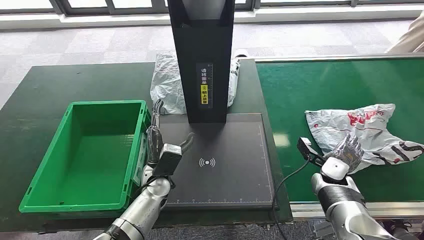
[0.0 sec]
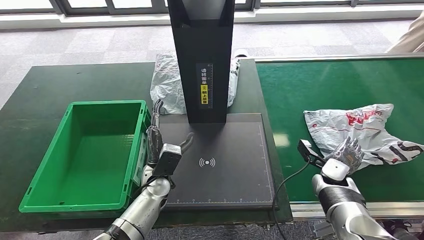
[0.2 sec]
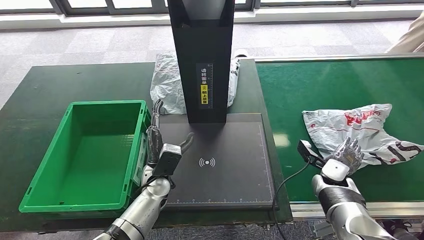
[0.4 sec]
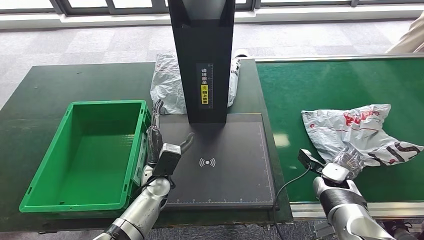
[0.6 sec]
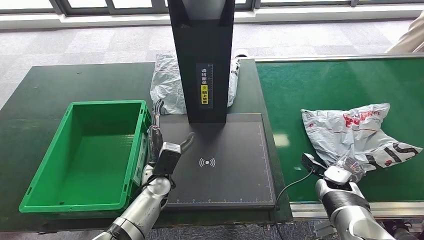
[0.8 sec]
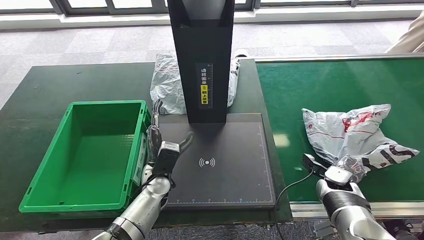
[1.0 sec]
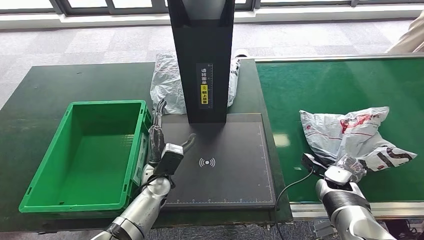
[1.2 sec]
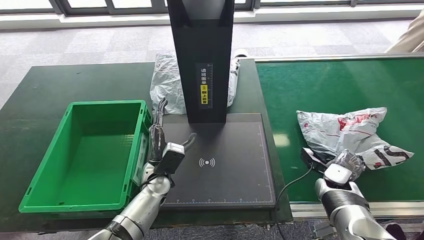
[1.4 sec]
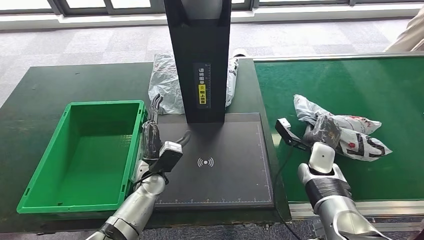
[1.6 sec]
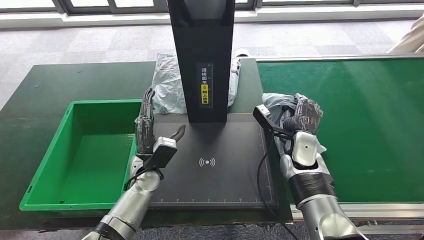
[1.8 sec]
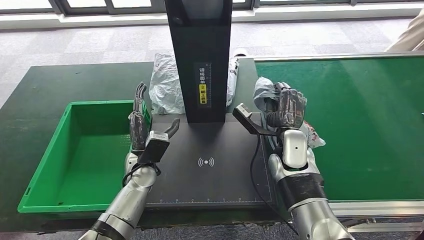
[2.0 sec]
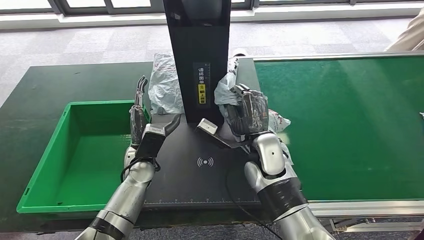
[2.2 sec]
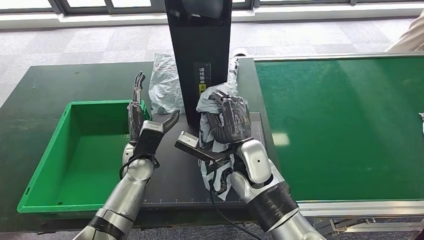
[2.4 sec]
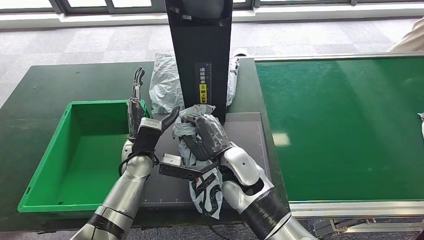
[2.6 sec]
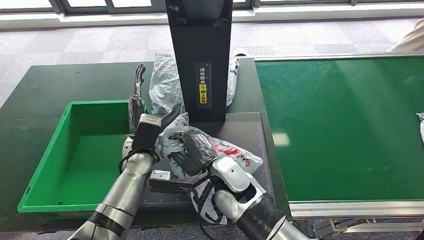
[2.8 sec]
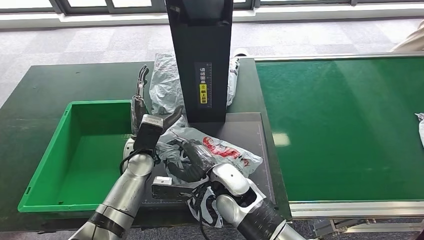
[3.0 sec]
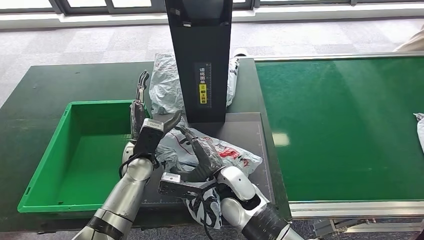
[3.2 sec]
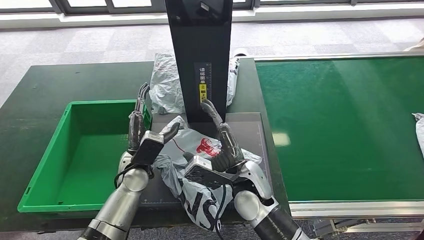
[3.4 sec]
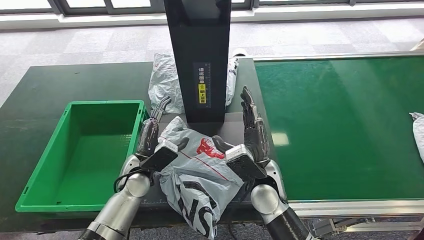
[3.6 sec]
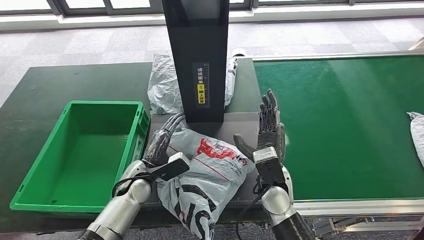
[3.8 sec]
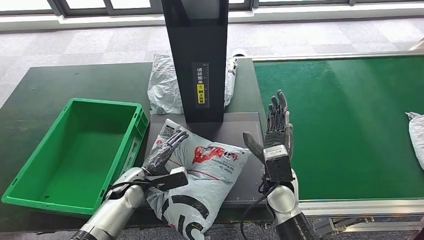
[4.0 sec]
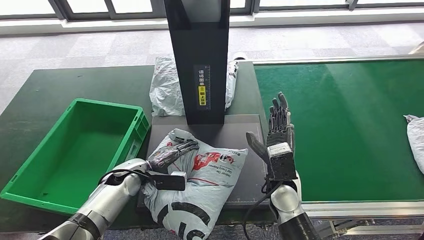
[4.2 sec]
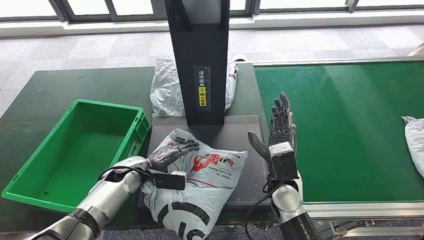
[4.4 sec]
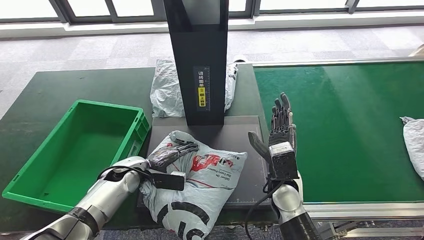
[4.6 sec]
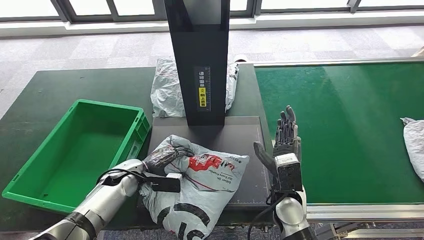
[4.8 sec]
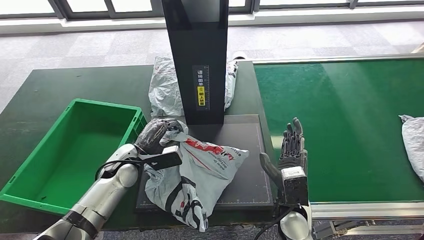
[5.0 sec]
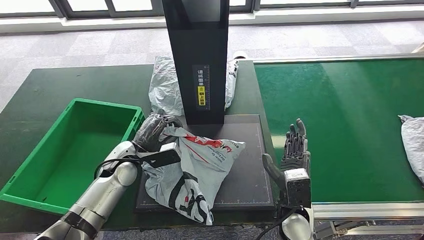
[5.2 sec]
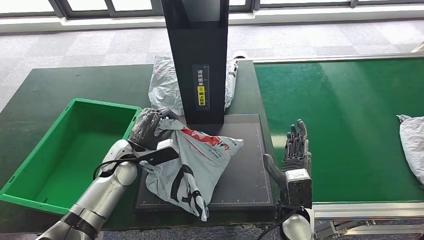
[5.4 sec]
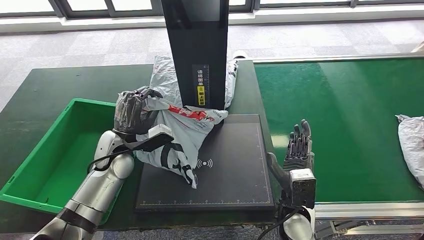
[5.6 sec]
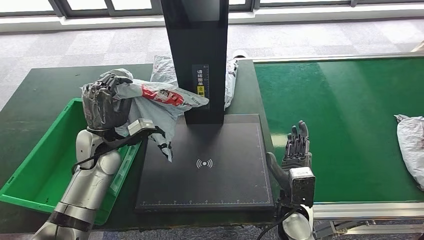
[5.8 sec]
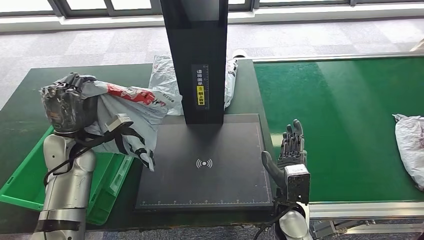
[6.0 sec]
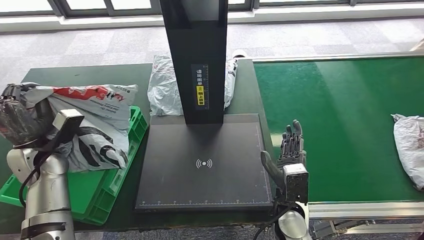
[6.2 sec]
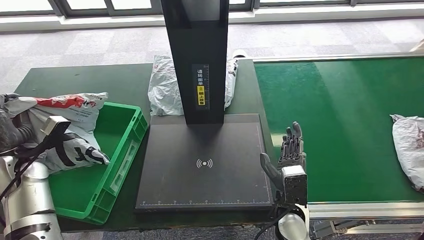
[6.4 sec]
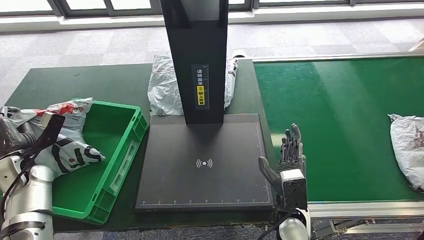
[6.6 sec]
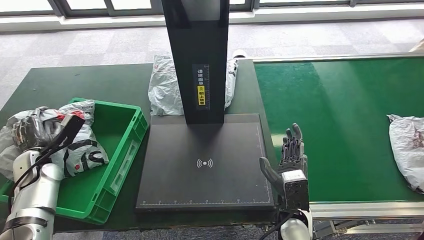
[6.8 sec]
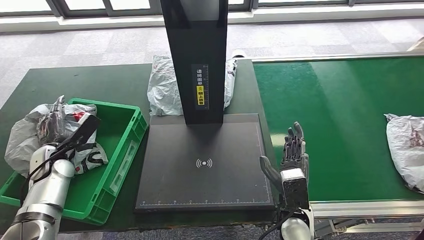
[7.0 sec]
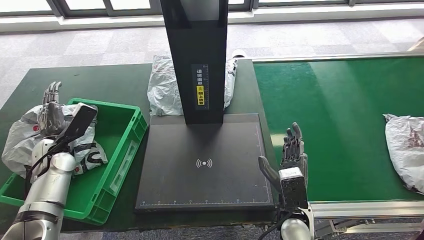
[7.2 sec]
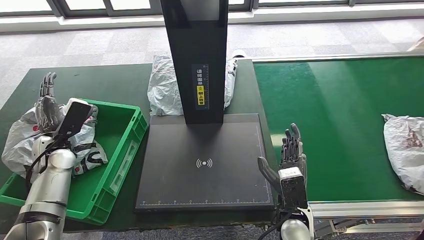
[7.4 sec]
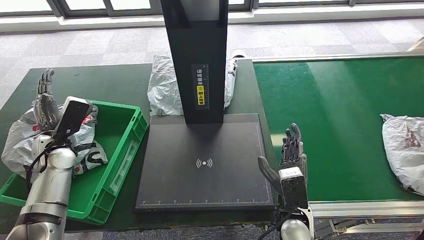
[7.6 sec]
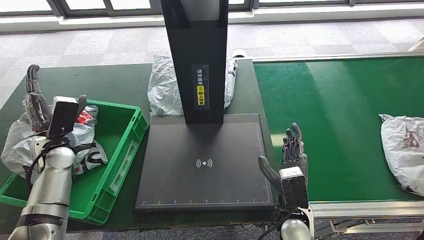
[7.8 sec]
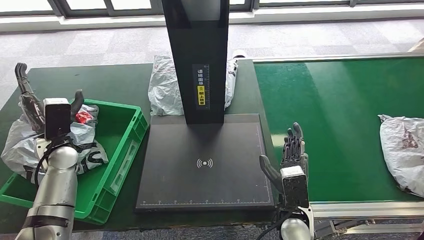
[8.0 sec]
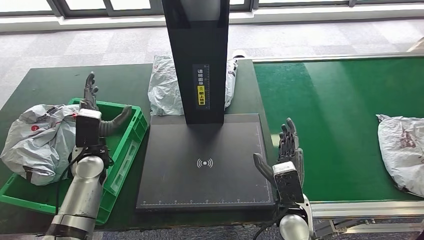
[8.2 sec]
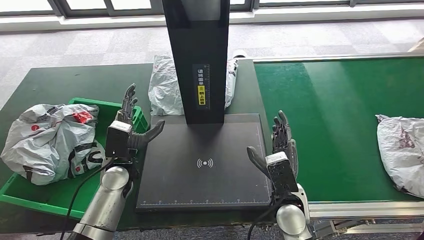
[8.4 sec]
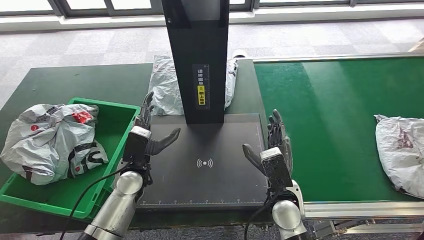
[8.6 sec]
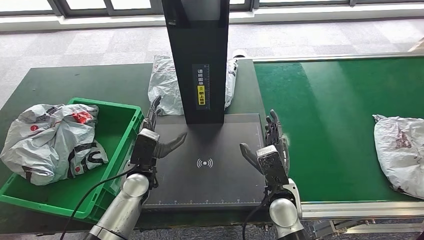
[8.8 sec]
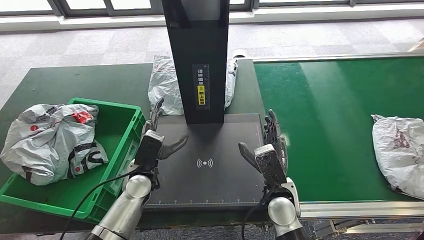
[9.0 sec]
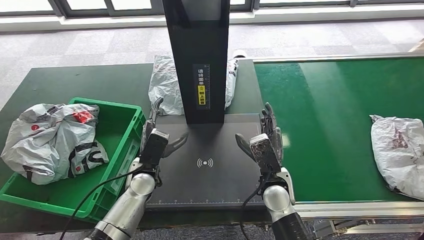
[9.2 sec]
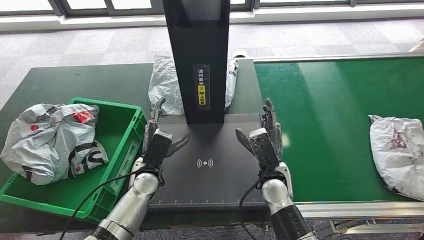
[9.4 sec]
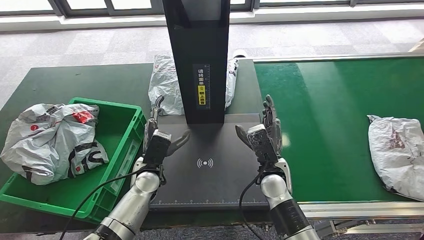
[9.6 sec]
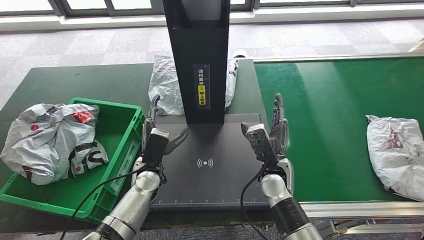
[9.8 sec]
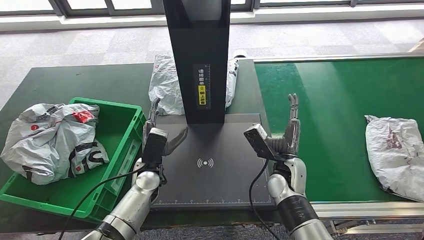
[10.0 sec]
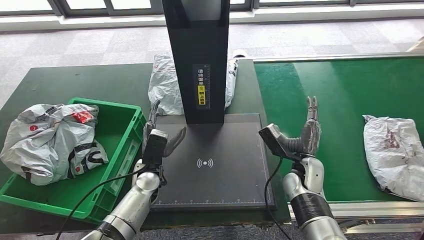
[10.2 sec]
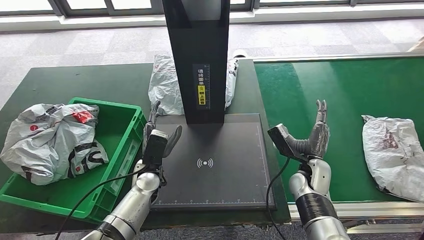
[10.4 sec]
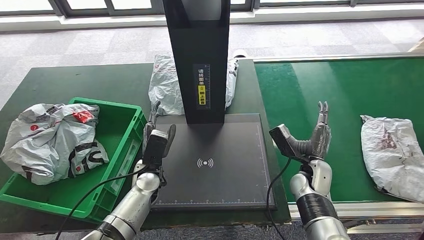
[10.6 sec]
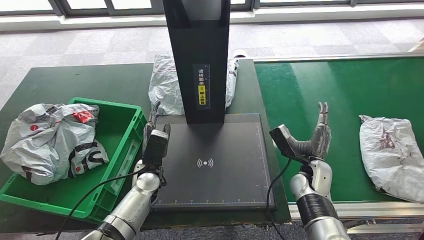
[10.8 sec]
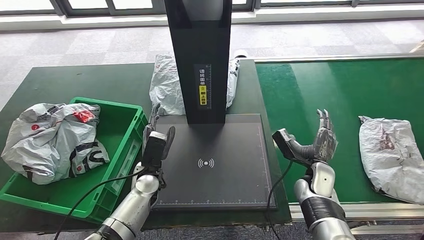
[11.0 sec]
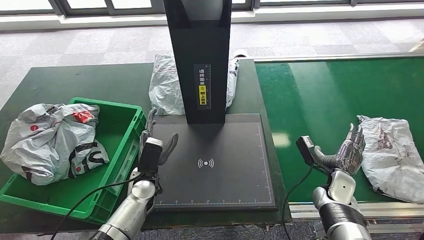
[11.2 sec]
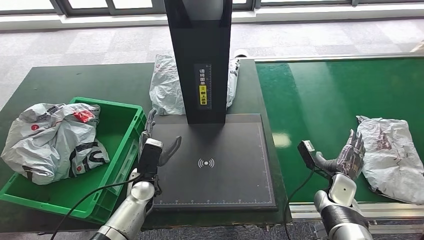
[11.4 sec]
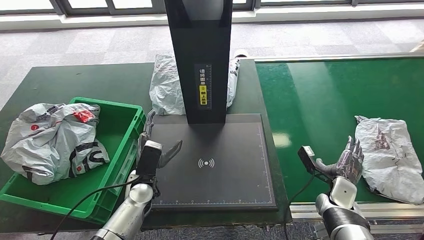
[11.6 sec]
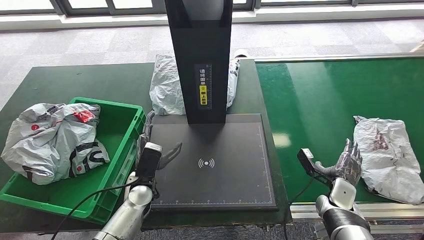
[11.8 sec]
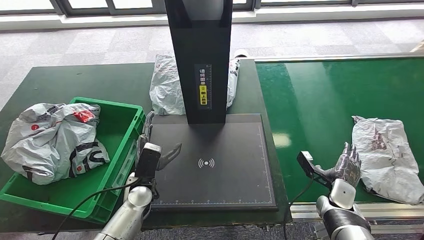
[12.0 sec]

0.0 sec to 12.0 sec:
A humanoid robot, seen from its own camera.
Step, 0.0 sec to 1.8 sec: Take the parcel off the conveyor belt.
Step, 2.0 sec to 3.8 sec: Place the parcel onto the inbound machine.
Step, 4.0 sec to 6.0 sec: Pick up the parcel from the inbound machine.
Step, 6.2 sec to 7.8 sec: Put the parcel inside the courier box.
6.0 sec to 7.6 sec: The left hand is displaced to the left by about 5 cm.
7.6 sec to 9.0 sec: The left hand goes roughly 25 cm to the right. The right hand changes place by some 5 cm.
9.0 sec to 10.4 sec: The right hand goes some 10 cm to the right and forward.
10.4 sec to 12.0 sec: The right hand travels to the right and downward by approximately 10 cm.

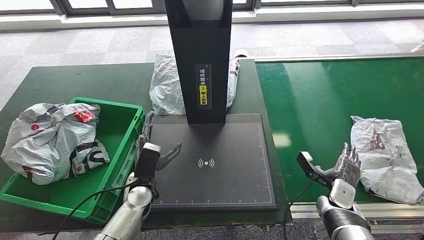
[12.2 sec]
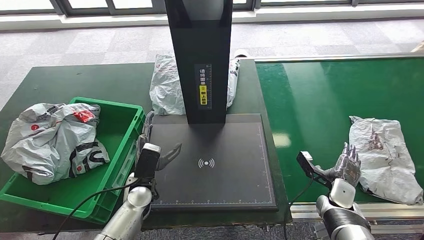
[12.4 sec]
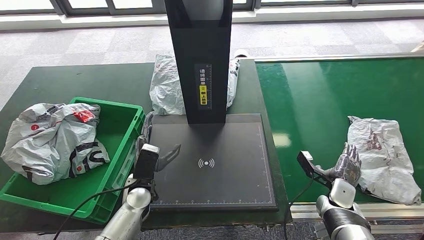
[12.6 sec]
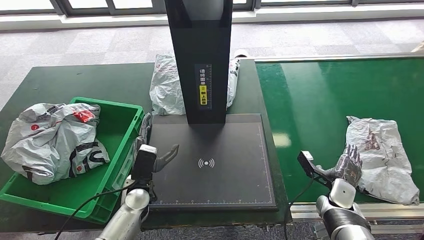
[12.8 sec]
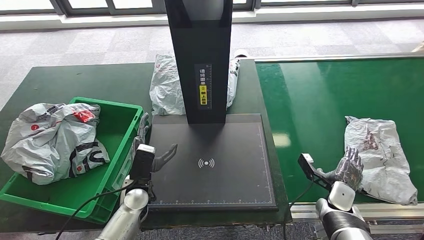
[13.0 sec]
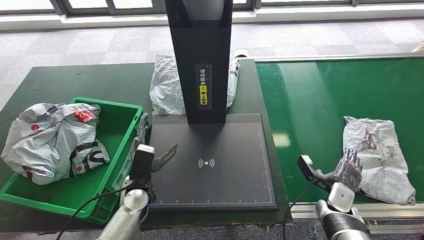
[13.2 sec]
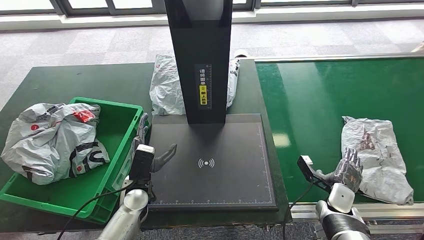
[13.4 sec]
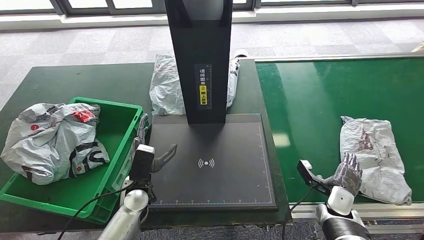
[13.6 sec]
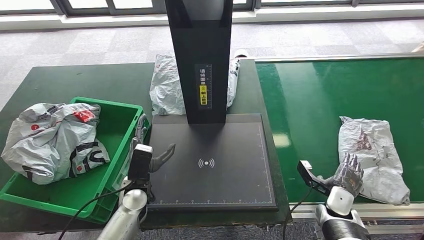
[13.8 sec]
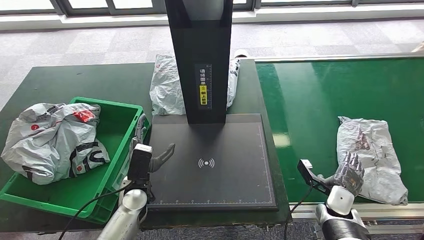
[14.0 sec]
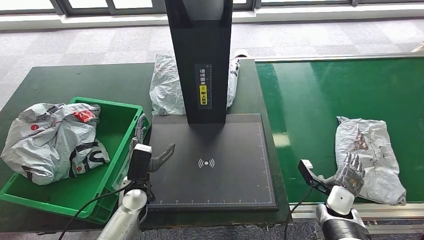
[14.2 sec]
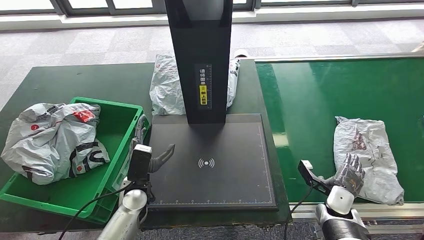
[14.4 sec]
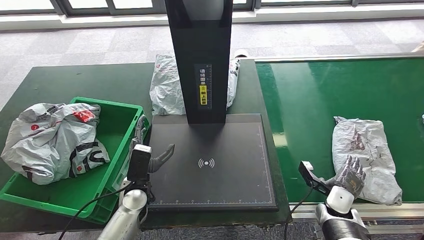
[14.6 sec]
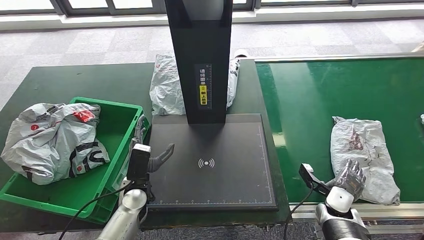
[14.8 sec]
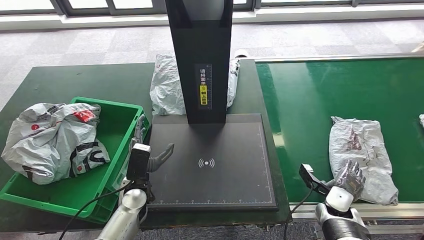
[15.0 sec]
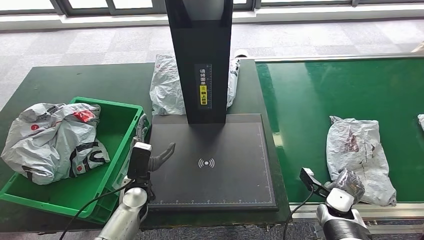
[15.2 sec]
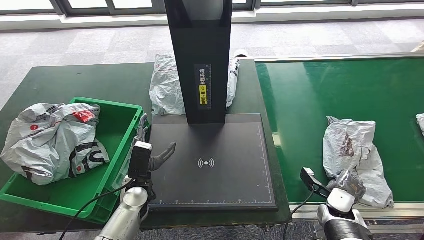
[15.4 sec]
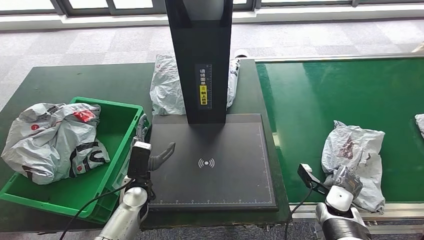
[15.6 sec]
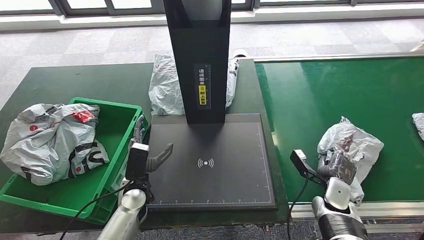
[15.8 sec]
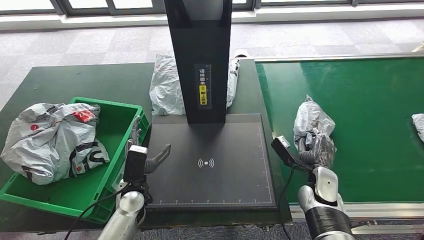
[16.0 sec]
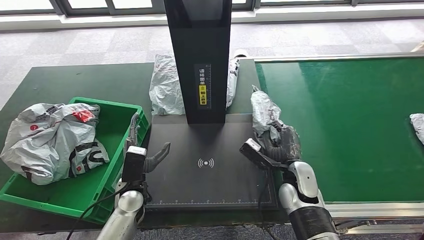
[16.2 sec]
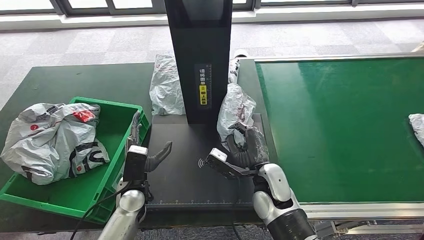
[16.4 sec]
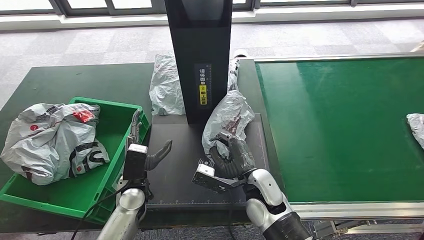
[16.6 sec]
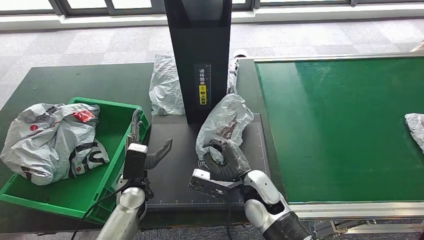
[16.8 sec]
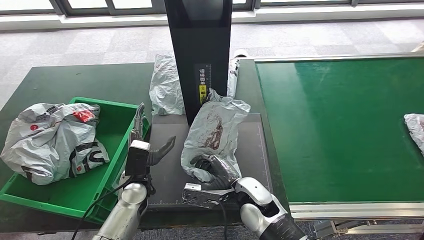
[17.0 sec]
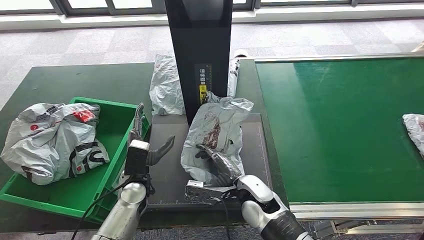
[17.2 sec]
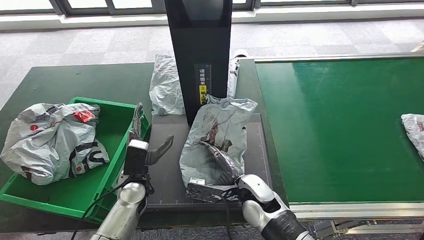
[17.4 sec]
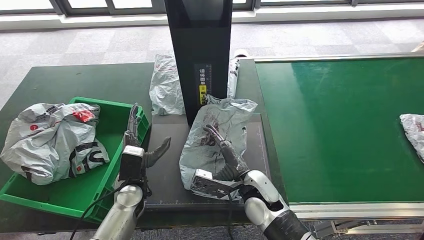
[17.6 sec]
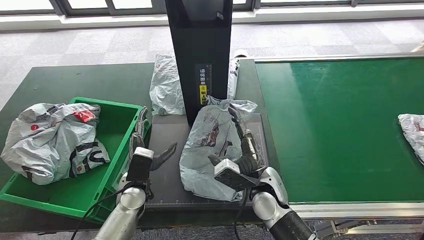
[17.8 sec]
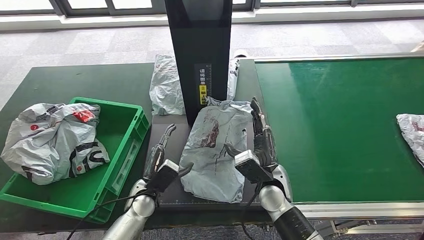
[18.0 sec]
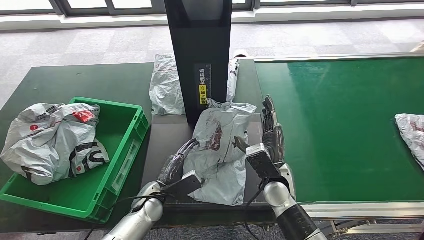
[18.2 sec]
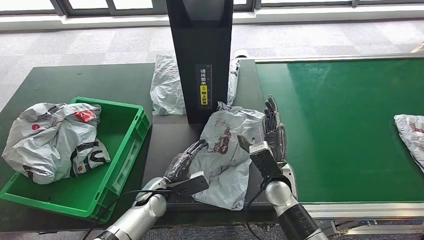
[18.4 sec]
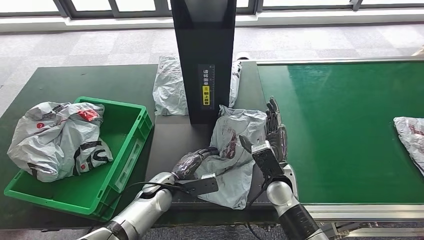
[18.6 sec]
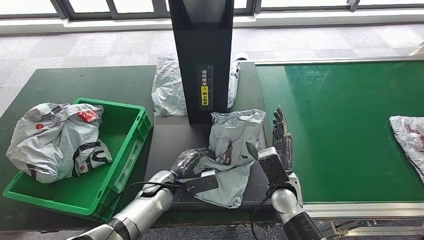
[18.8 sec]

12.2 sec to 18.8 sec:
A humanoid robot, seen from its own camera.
Step, 12.6 sec to 16.2 sec: Pick up the parcel from the conveyor belt.
Step, 16.4 sec to 17.8 sec: Place the parcel onto the inbound machine.
12.2 sec to 13.8 sec: There are only small adjustments of the hands.
13.8 sec to 15.4 sec: The hands make only small movements.
15.4 sec to 17.2 sec: The right hand goes about 25 cm to the left.
